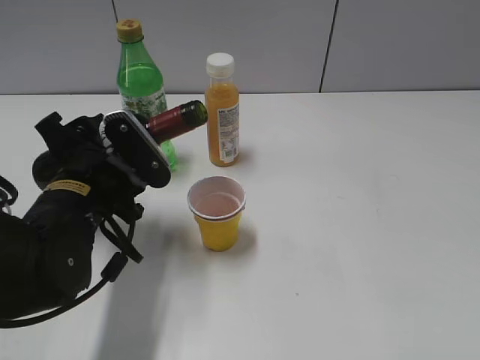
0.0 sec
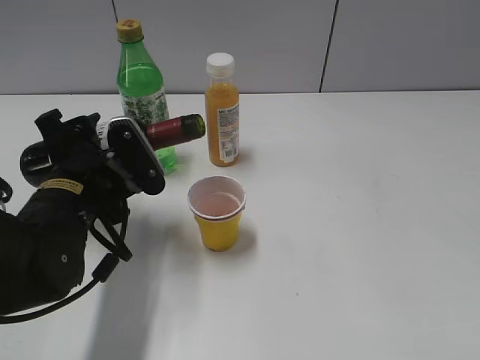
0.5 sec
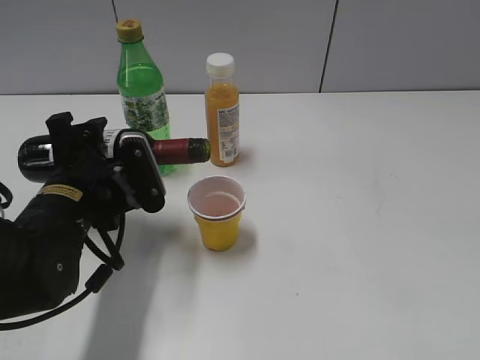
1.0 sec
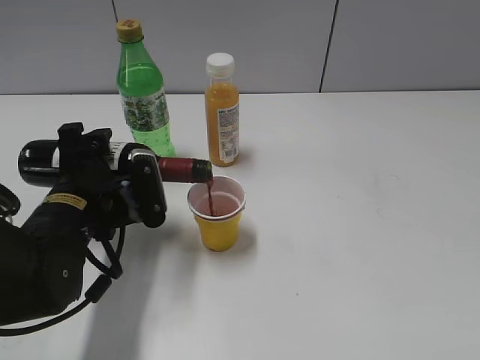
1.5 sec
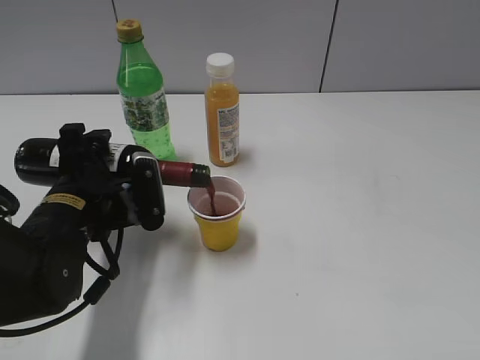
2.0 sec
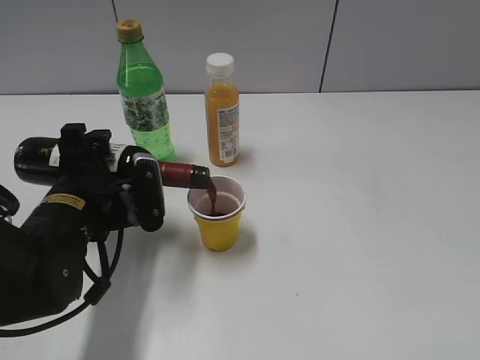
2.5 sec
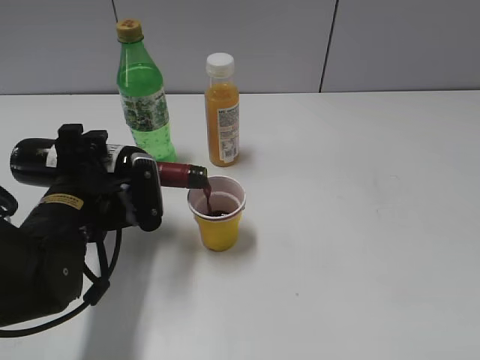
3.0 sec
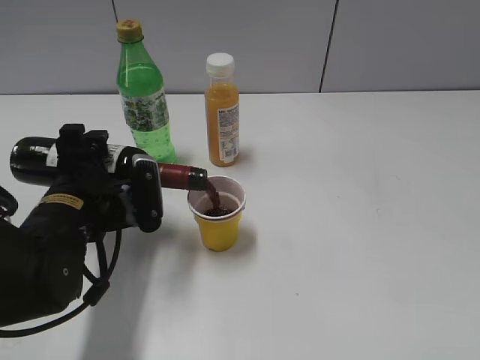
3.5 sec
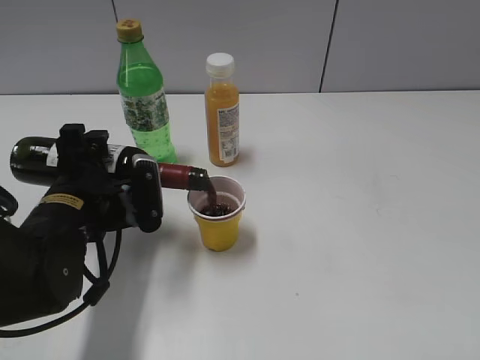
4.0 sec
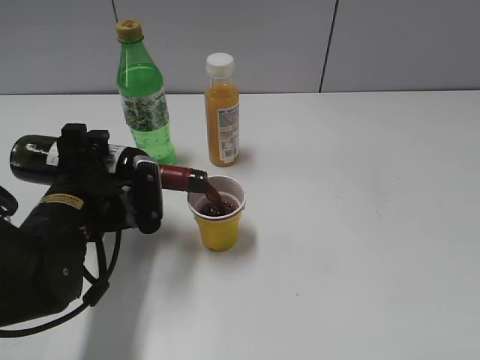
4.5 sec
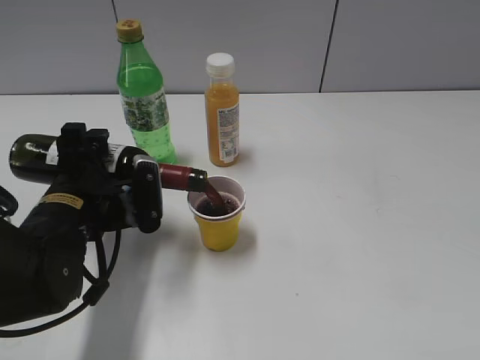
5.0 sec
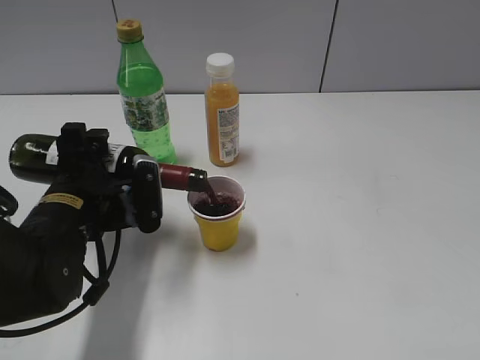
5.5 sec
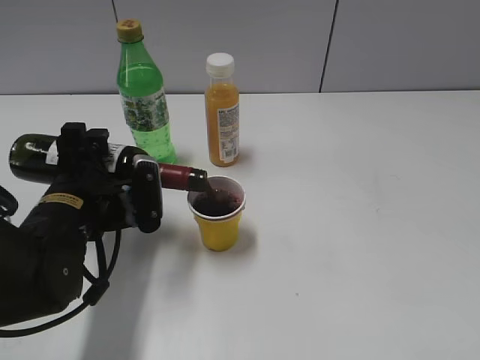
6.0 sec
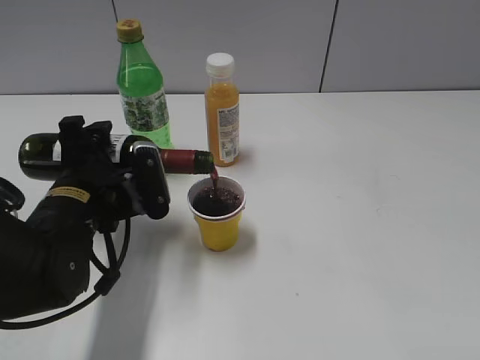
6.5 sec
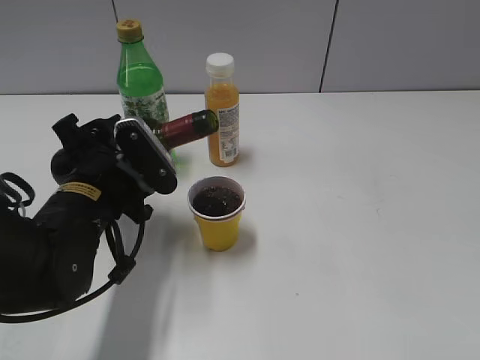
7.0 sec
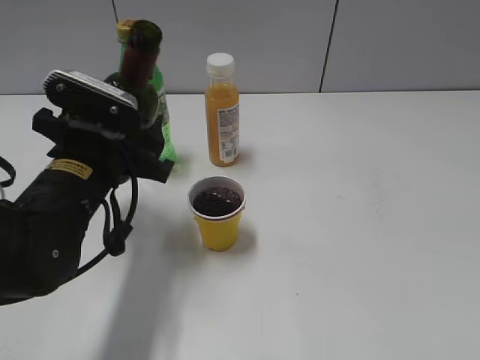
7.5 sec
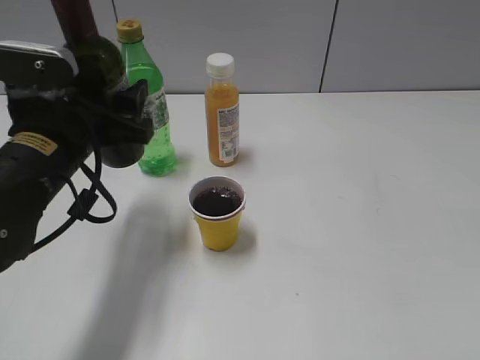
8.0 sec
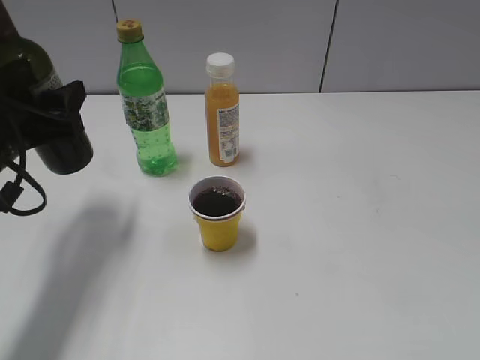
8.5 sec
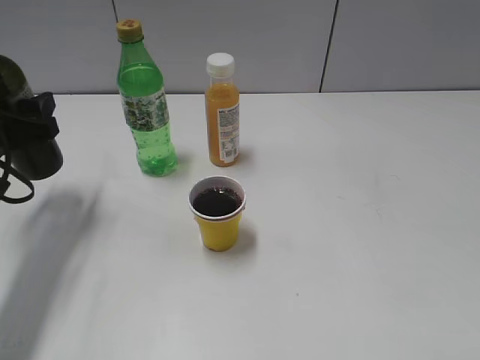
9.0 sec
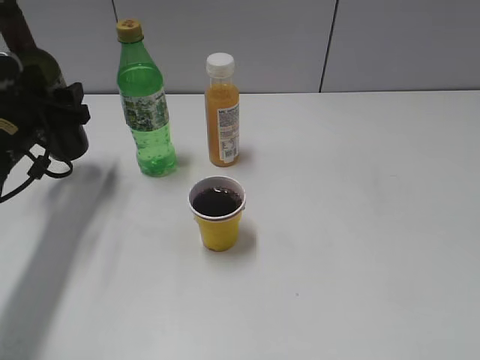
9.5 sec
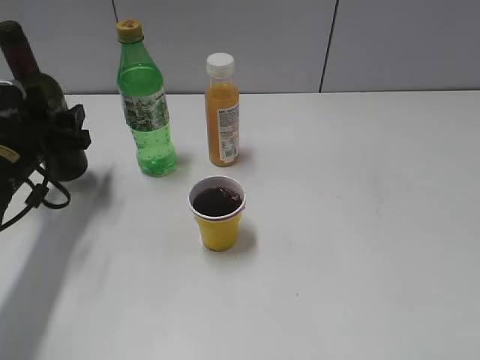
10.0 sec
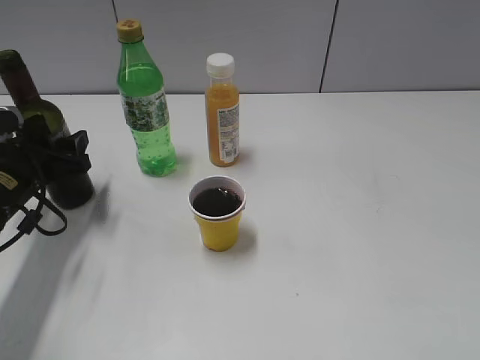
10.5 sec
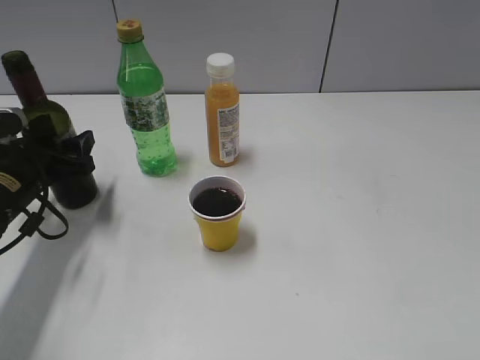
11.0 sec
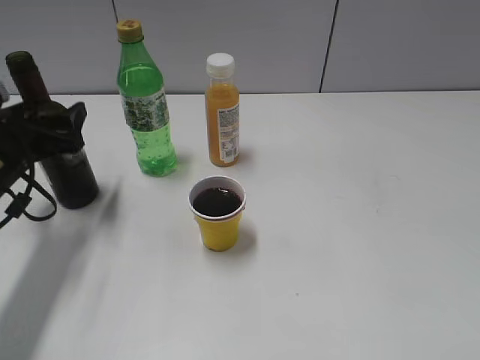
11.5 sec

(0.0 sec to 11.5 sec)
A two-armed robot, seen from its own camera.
Step, 0.0 sec - 6.5 sec: Pour the red wine from bottle to cup with left gripper.
2.0 sec - 6.0 sec: Neither gripper changes place.
7.5 sec - 9.5 sec: The left gripper travels to the left and forward by approximately 15 cm.
9.5 sec - 11.5 sec: The grippers move only a little.

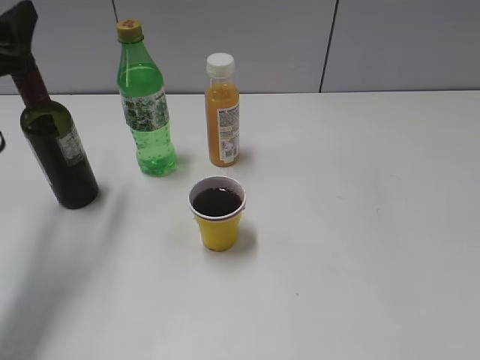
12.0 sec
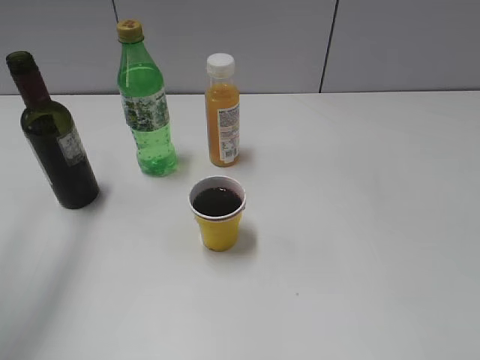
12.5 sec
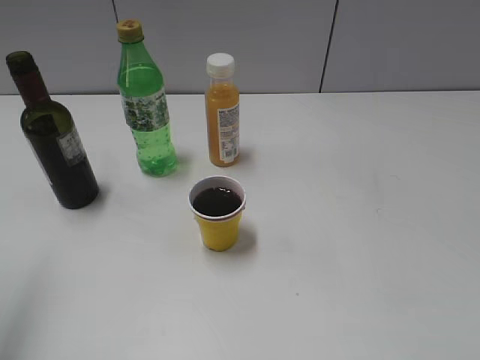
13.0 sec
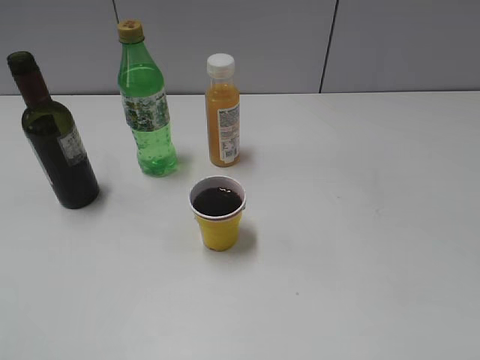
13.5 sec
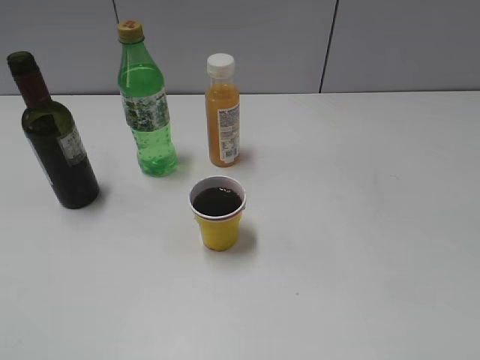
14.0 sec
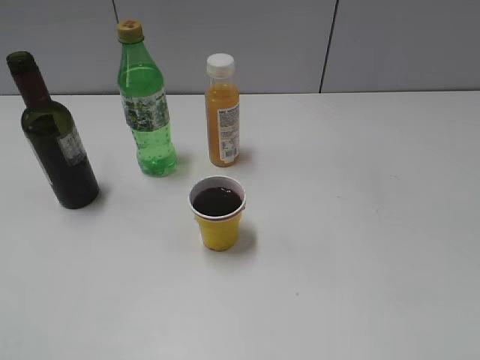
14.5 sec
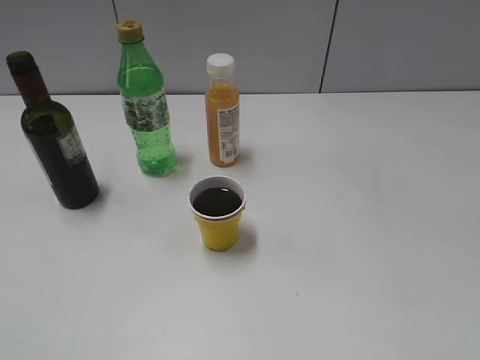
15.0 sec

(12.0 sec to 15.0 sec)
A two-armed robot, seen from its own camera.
12.0 sec - 13.5 sec: The left gripper travels backward and upward by approximately 30 cm.

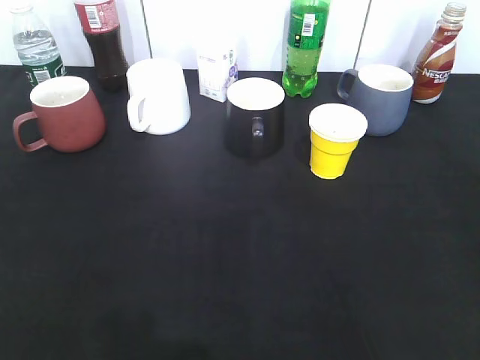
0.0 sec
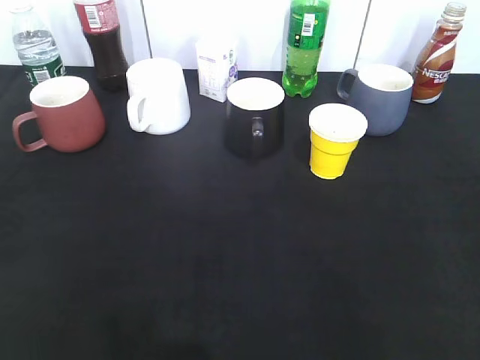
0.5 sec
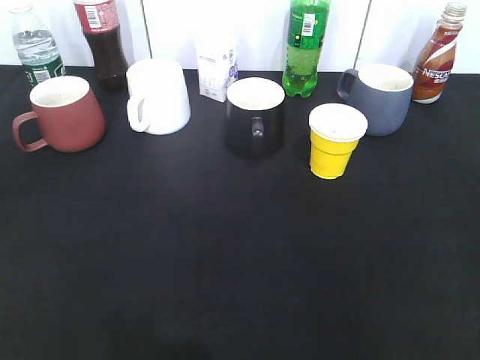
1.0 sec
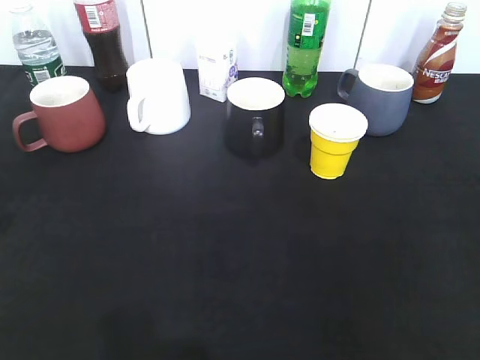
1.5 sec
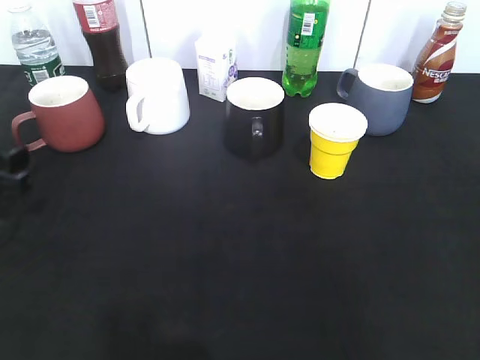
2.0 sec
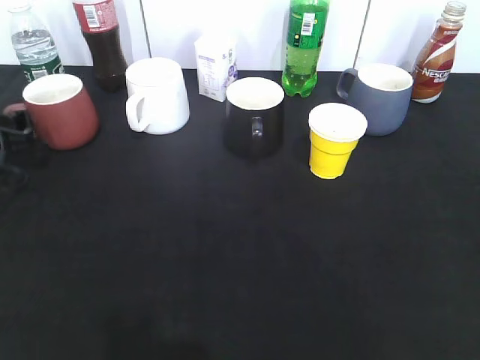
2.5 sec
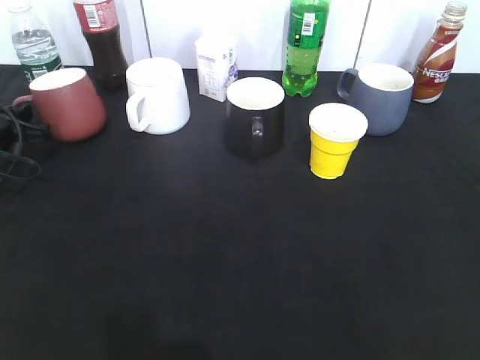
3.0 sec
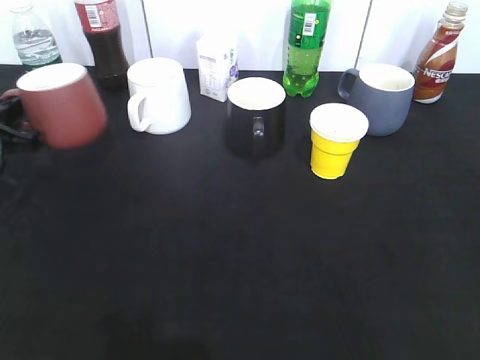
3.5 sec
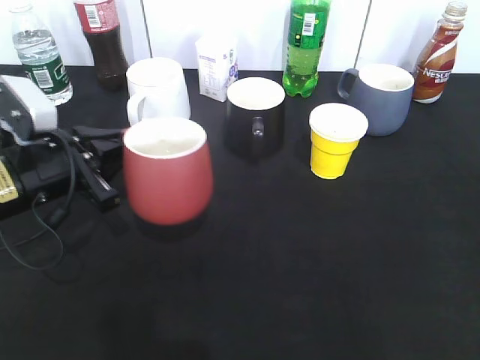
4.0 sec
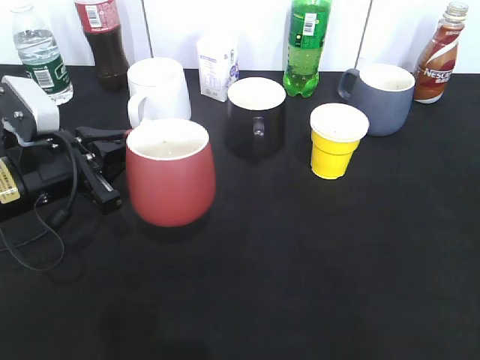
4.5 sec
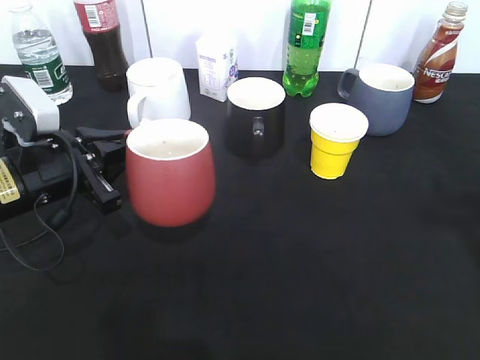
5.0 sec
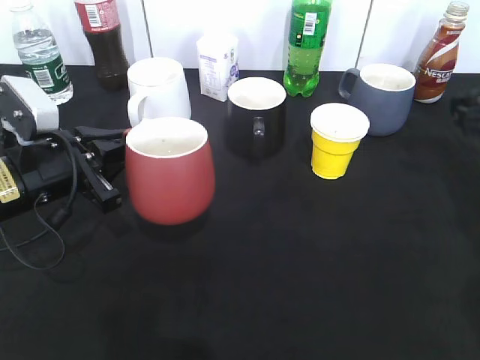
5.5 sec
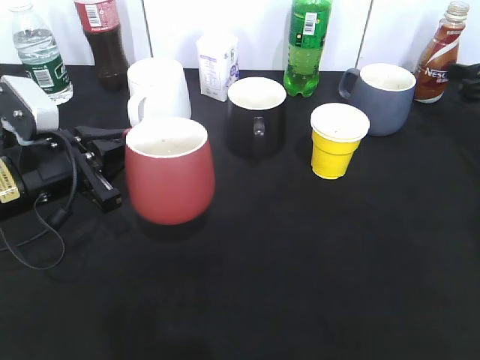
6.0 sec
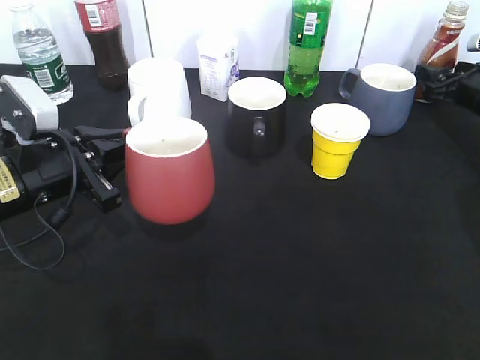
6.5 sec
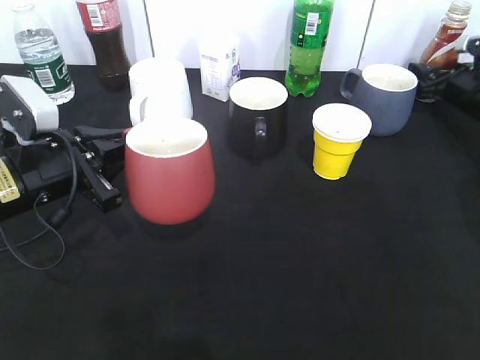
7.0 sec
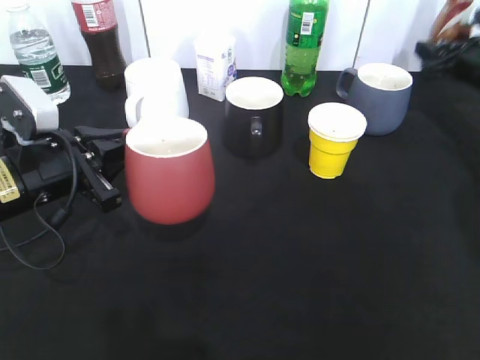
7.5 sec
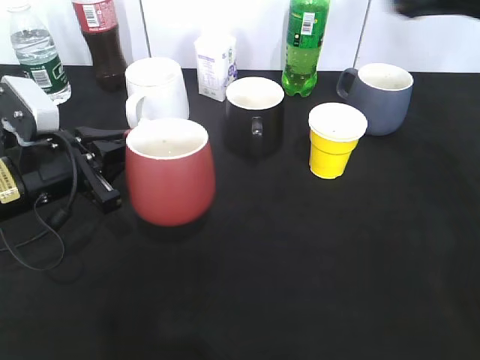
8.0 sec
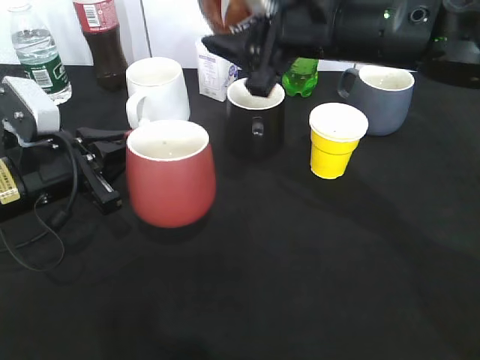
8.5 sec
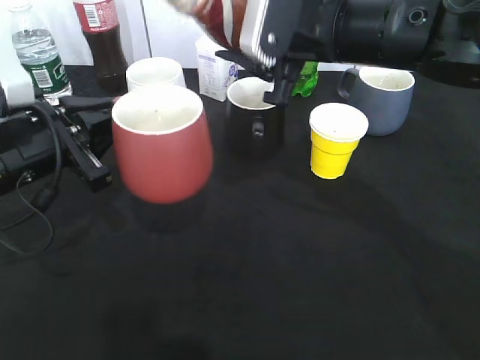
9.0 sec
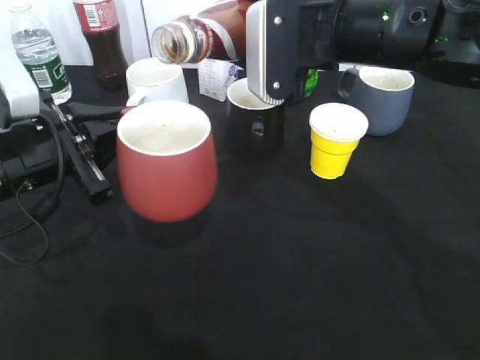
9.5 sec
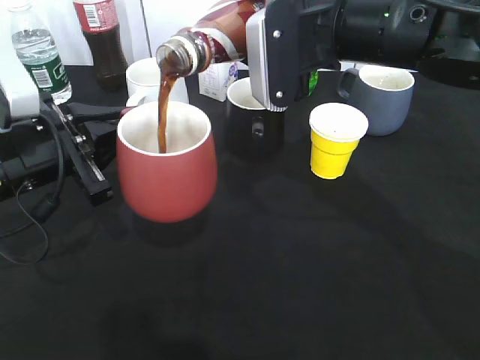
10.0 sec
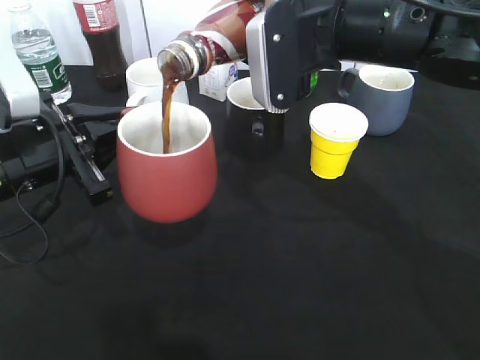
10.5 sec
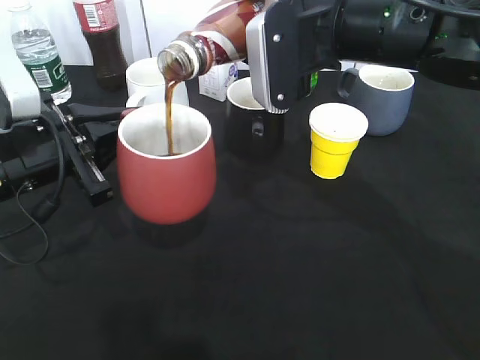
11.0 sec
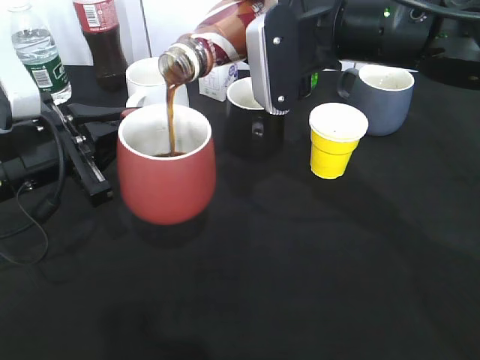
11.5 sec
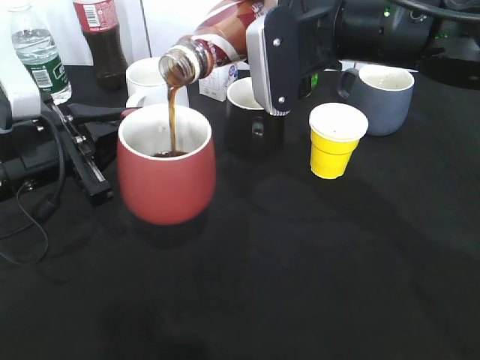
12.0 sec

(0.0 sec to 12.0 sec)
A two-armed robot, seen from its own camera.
Step, 2.0 sec - 3.0 sec: Grasp the red cup with left gripper.
Step, 3.5 sec - 5.0 sec: Lift the red cup with left gripper.
Step, 5.5 sec - 7.0 sec: Grasp the bottle with coffee with right gripper.
0.0 sec - 2.0 sec: The left gripper shifts some 30 cm forward and downward.
2.0 sec - 4.0 sec: The left gripper travels to the right by approximately 10 cm, and closes up.
4.0 sec - 6.0 sec: The right gripper heads forward, covering about 40 cm.
6.0 sec - 8.0 sec: The right gripper shifts approximately 20 cm to the left and upward, and closes up.
8.0 sec - 10.0 sec: The right gripper travels to the left and backward by about 15 cm.
10.0 sec - 12.0 sec: The two grippers keep their place.
